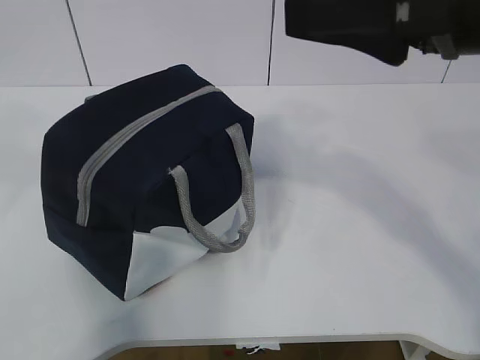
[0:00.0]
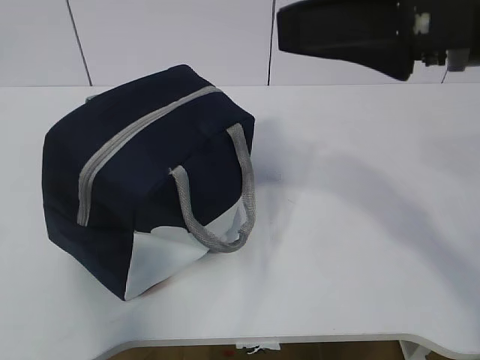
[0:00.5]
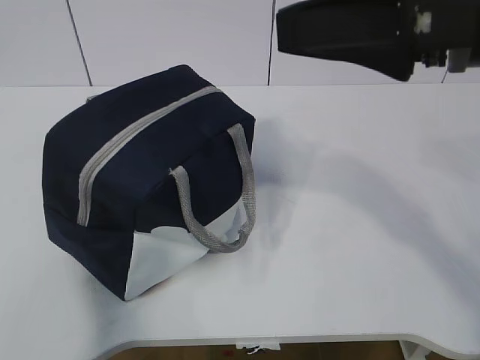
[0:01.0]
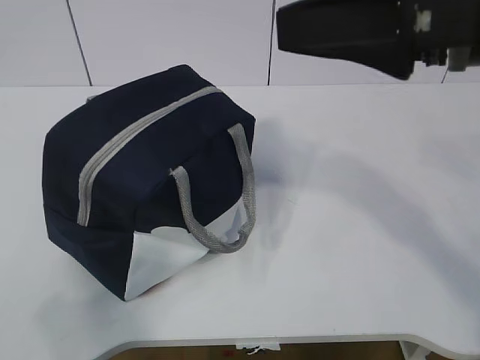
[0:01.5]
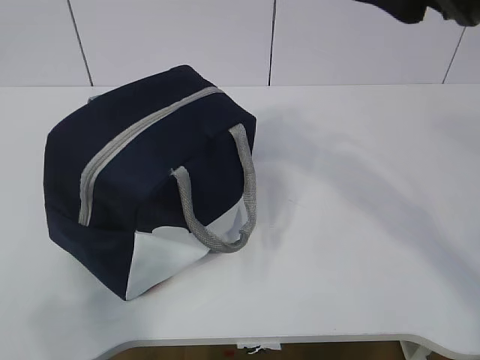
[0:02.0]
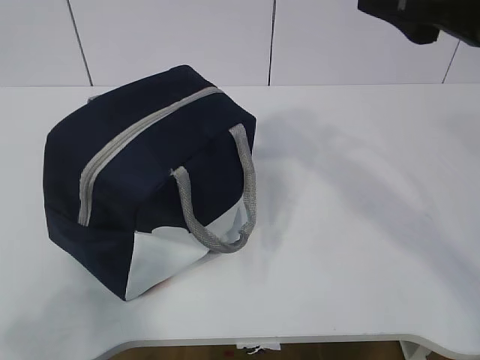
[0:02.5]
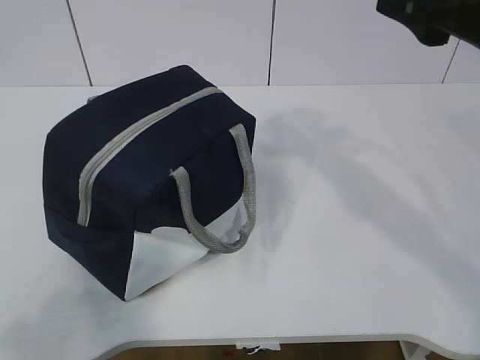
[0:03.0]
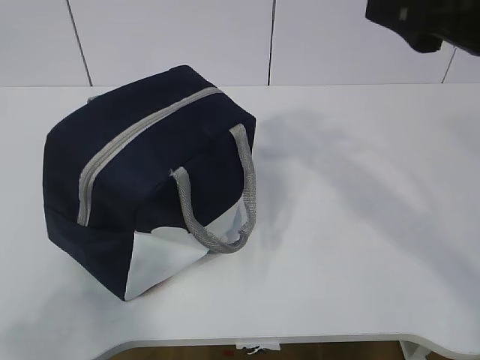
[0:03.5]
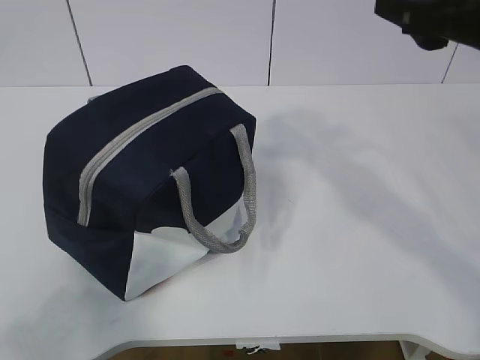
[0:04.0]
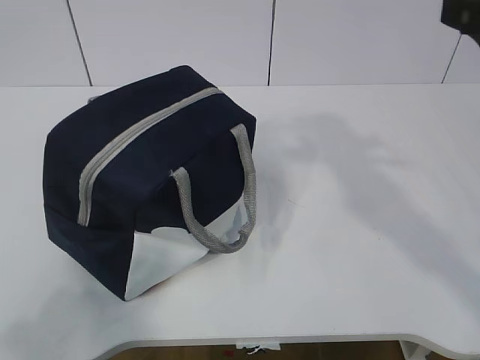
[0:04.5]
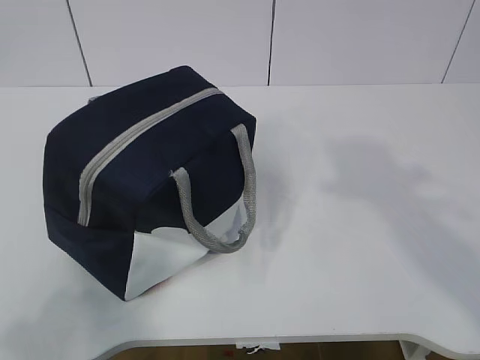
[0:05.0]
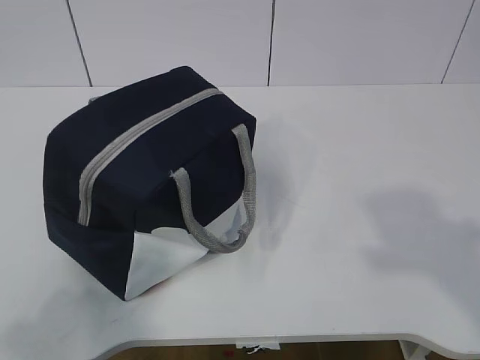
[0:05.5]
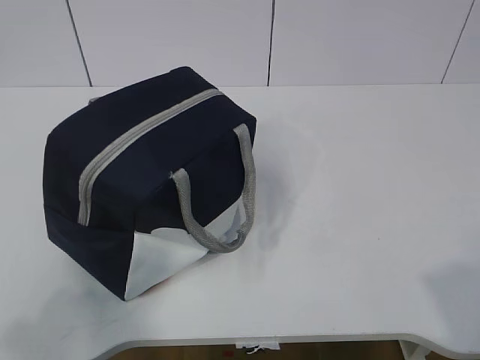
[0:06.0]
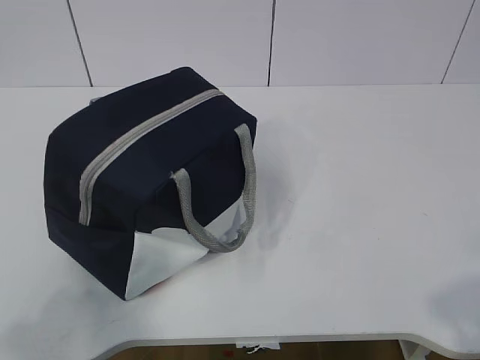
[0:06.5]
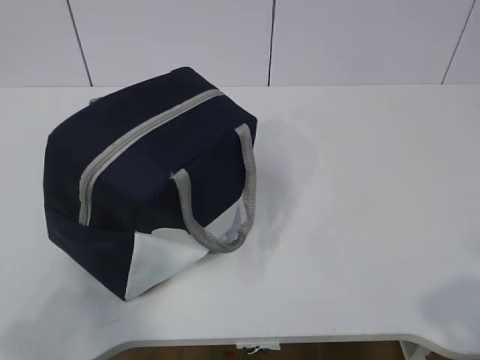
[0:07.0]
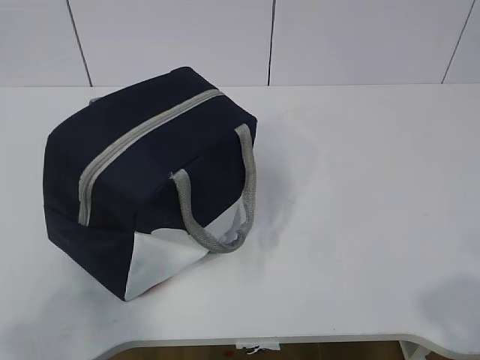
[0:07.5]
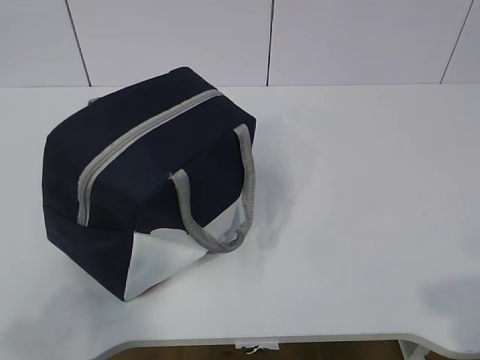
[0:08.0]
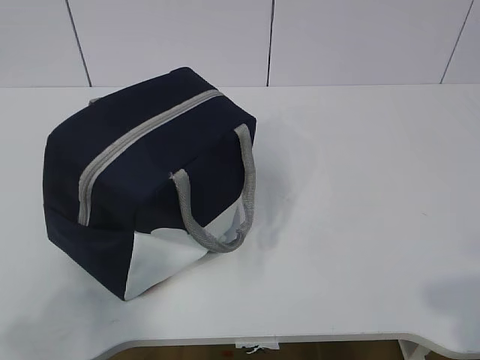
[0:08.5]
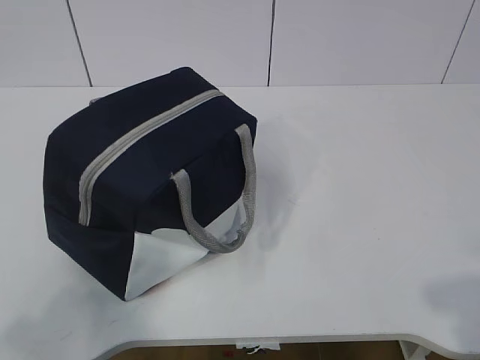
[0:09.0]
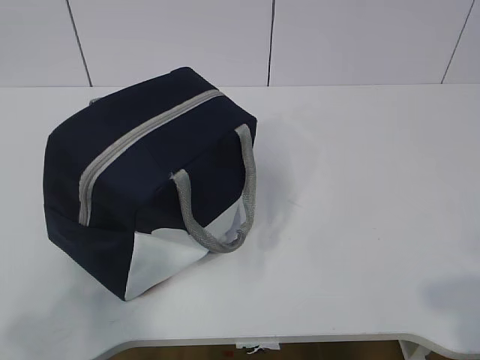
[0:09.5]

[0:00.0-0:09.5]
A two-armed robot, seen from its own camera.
0:00.0 to 0:02.0: The left gripper goes some 25 cm backward, downward and to the left.
0:04.0 to 0:05.5: The right gripper shifts about 20 cm backward.
0:05.5 to 0:07.5: The right gripper goes some 10 cm downward.
